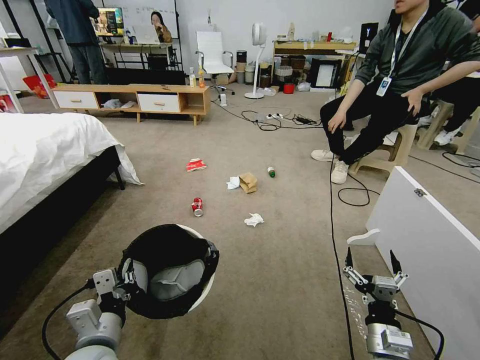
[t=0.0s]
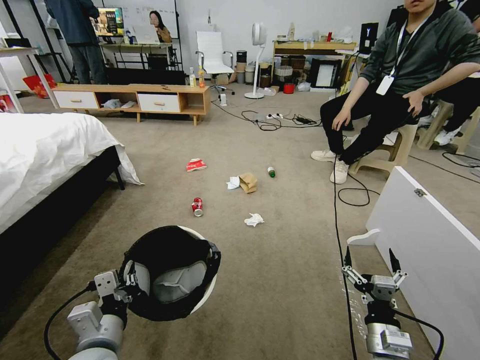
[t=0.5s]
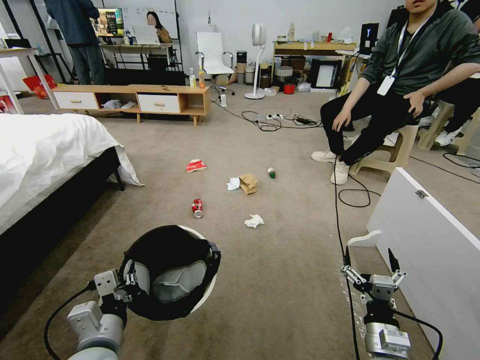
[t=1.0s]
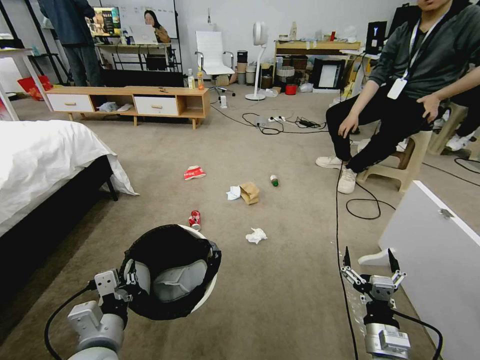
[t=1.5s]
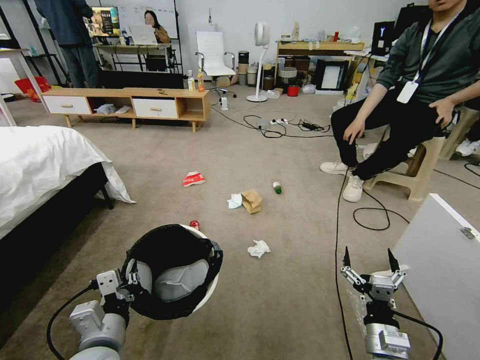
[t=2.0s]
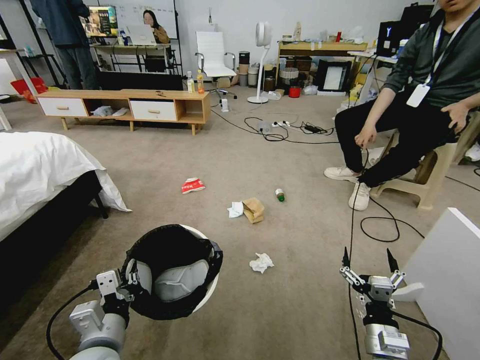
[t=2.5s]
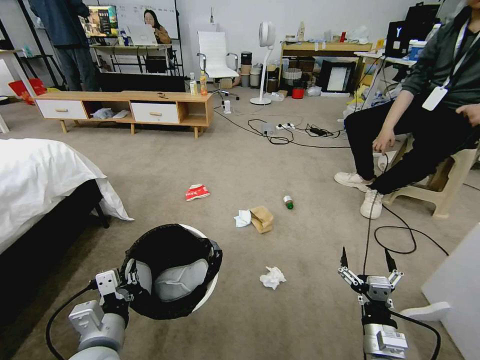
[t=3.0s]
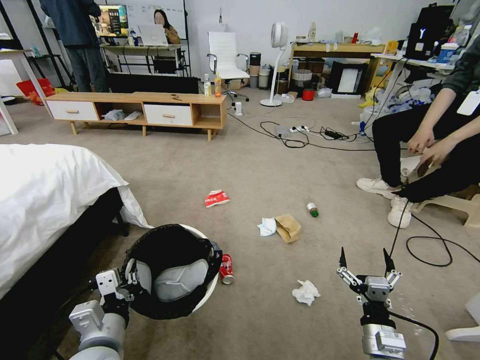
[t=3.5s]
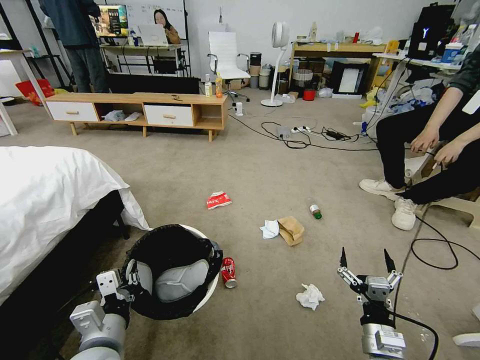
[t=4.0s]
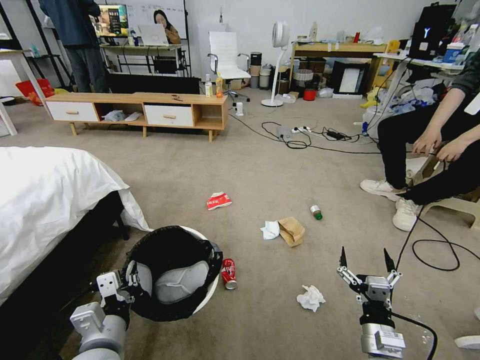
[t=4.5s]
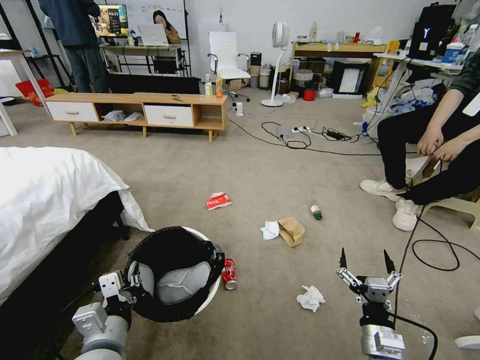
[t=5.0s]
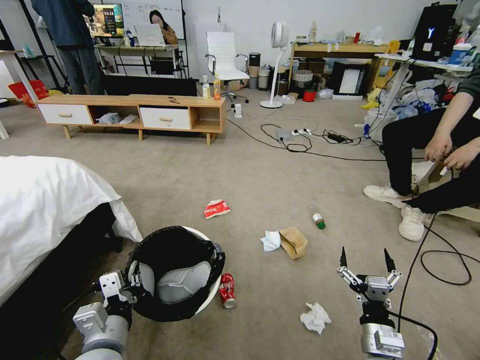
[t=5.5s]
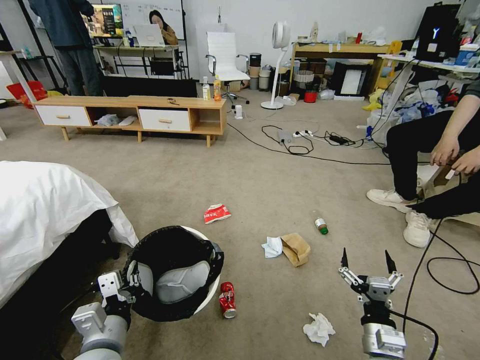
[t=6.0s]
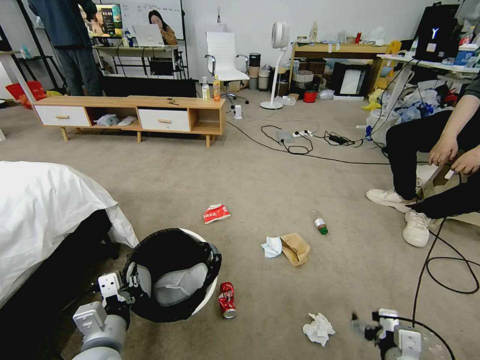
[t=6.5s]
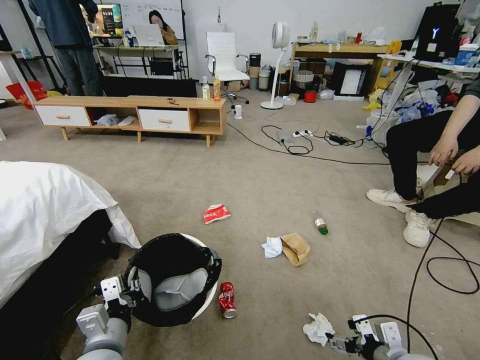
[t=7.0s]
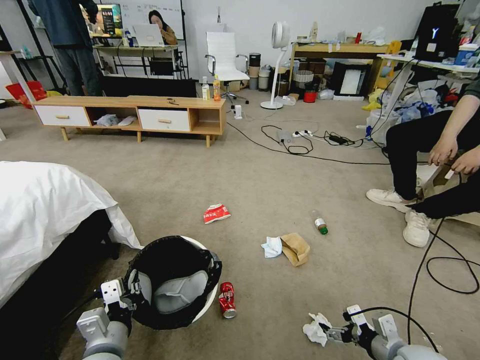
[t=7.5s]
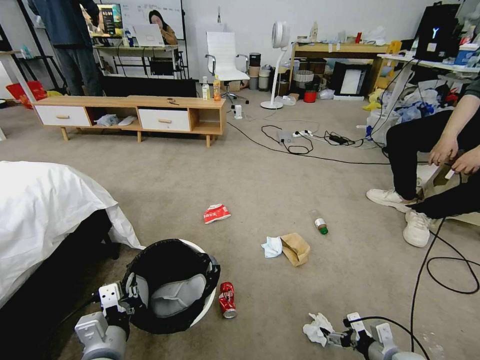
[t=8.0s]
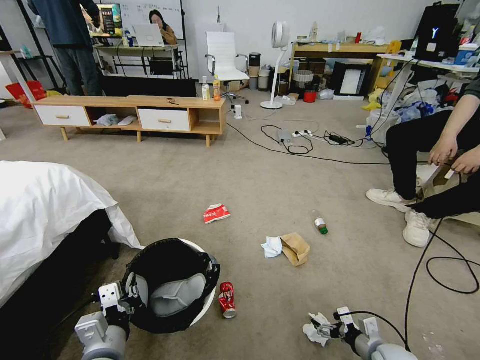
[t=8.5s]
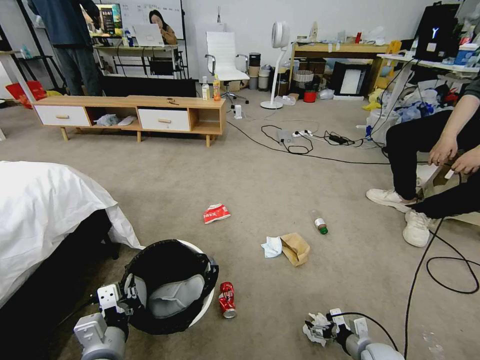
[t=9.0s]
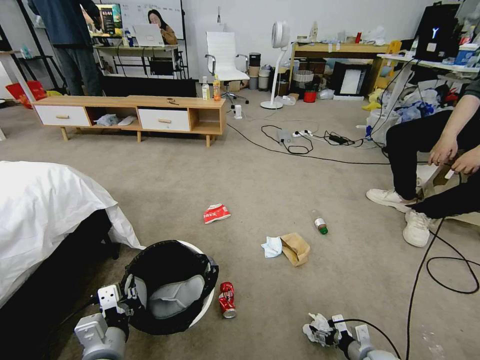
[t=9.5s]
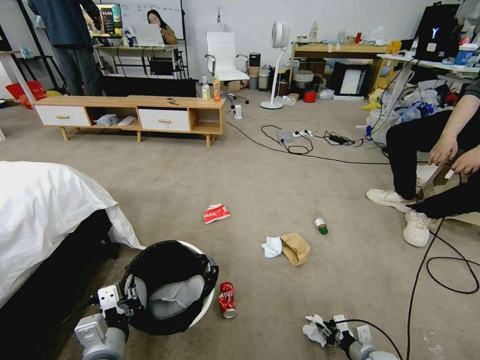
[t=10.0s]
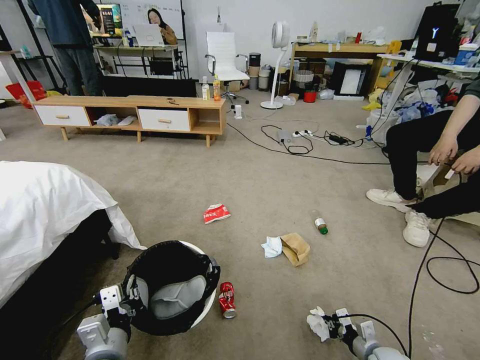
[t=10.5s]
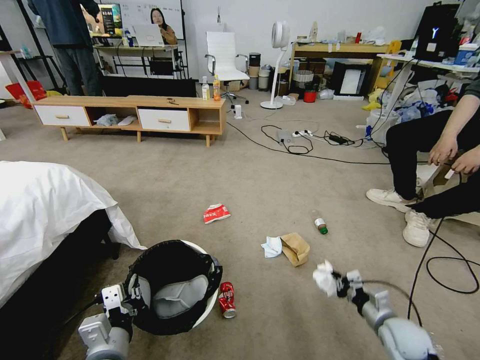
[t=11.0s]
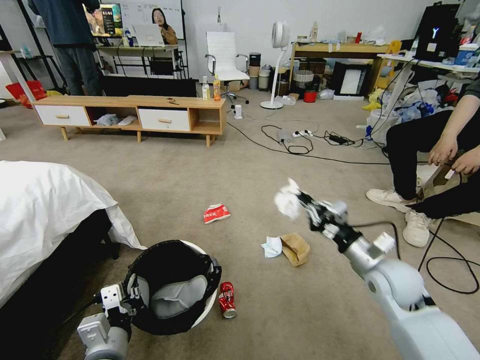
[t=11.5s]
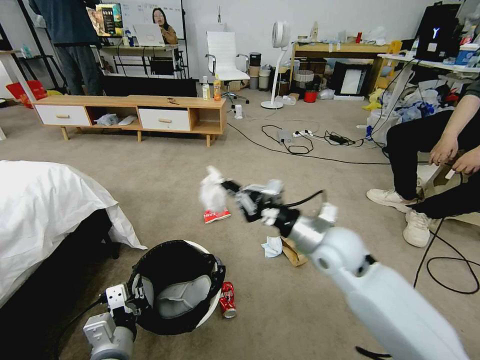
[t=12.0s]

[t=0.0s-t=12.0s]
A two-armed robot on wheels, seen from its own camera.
Task of the whole recording: Pick up the trash bin and place the garbage on the floor into it.
t=6.0s to t=8.0s: The right gripper travels to the right and downward by some 15 cm.
t=8.0s to t=10.0s: The right gripper moves downward, roughly 10 cm, and closes.
t=10.0s to t=12.0s: The right gripper is displaced upward and to the left by approximately 40 cm.

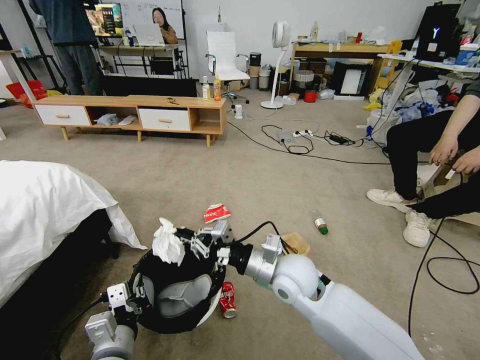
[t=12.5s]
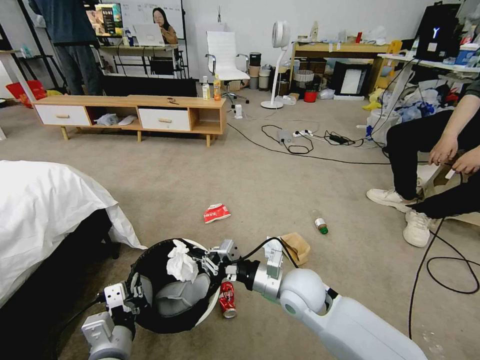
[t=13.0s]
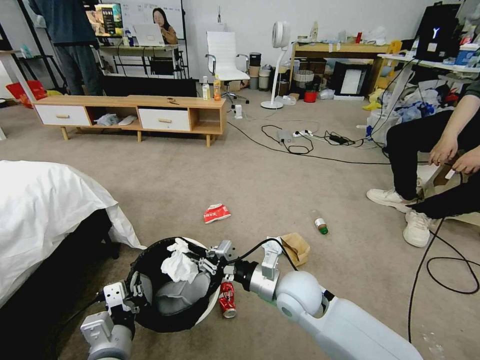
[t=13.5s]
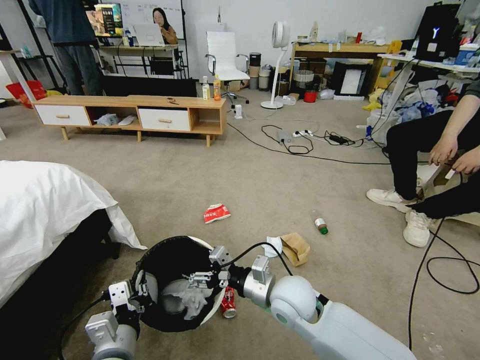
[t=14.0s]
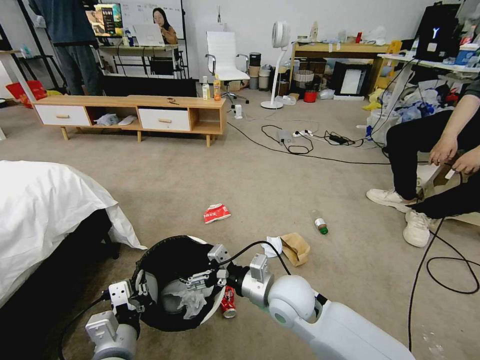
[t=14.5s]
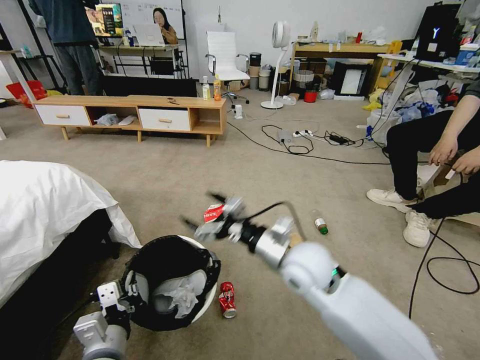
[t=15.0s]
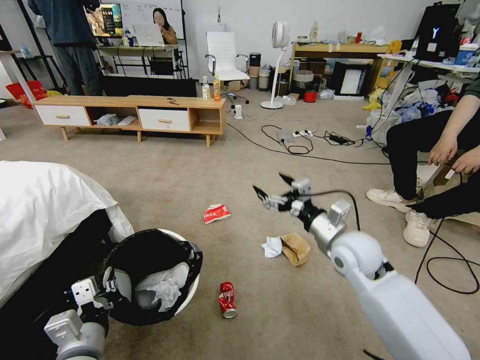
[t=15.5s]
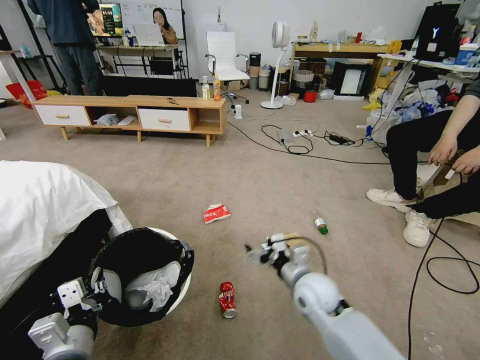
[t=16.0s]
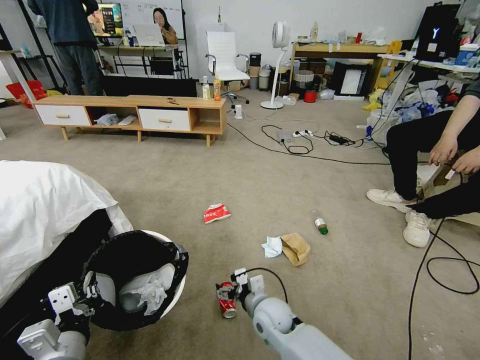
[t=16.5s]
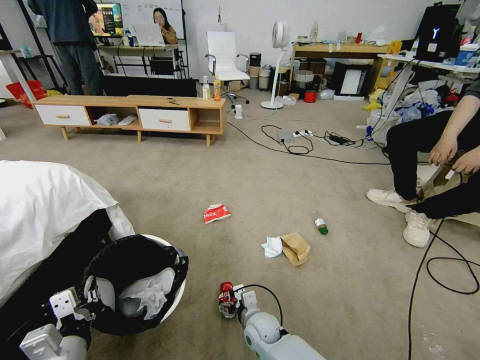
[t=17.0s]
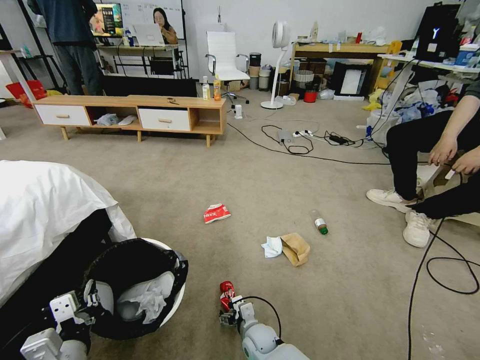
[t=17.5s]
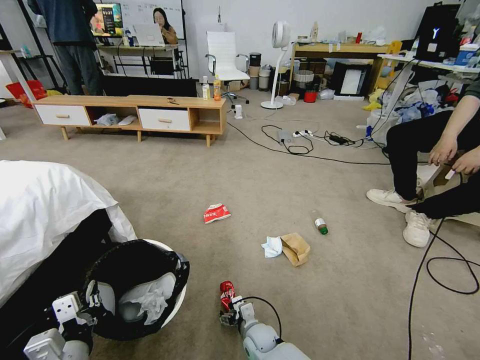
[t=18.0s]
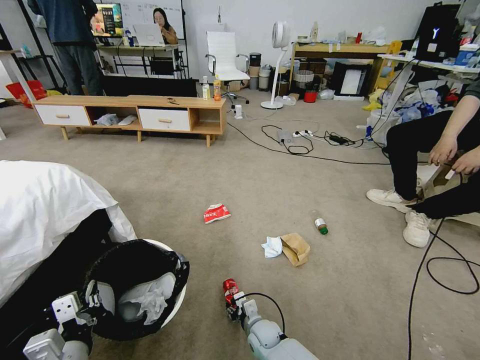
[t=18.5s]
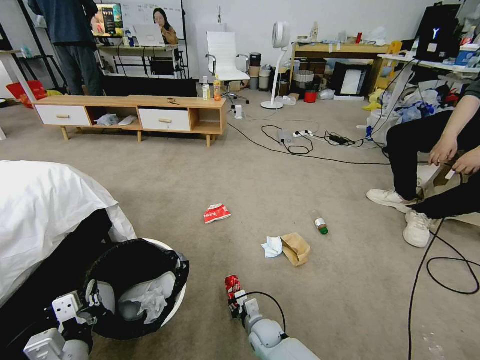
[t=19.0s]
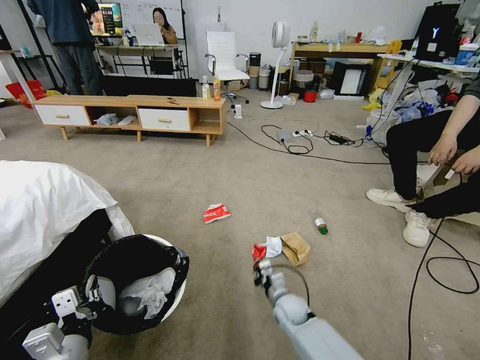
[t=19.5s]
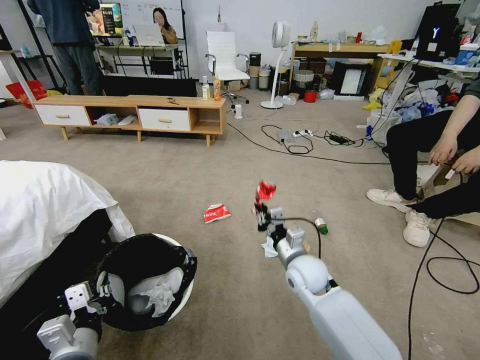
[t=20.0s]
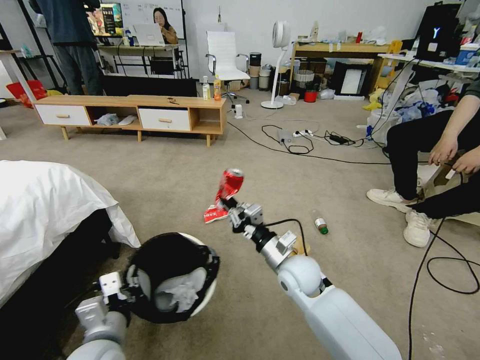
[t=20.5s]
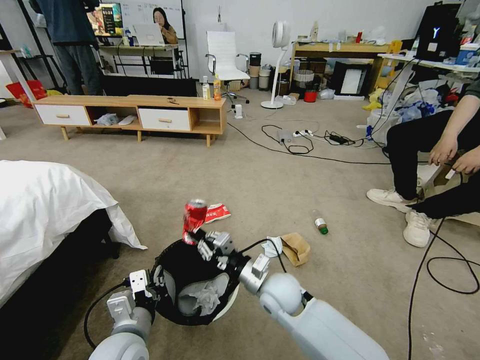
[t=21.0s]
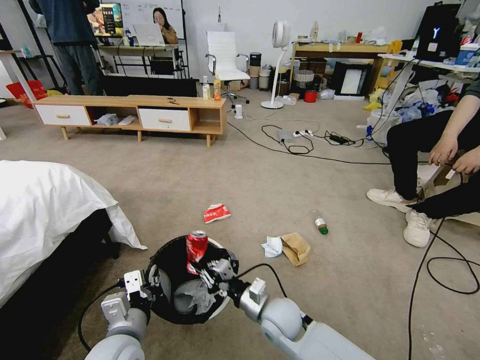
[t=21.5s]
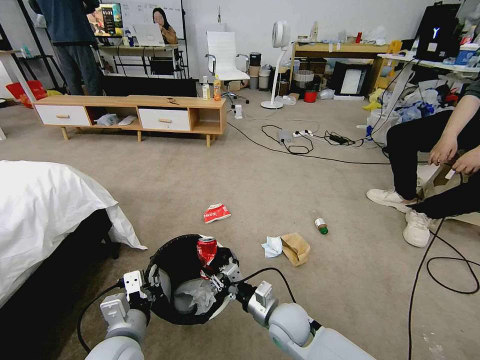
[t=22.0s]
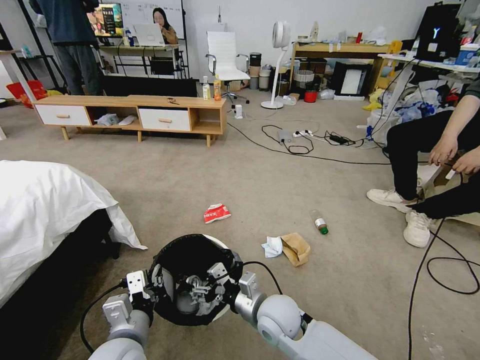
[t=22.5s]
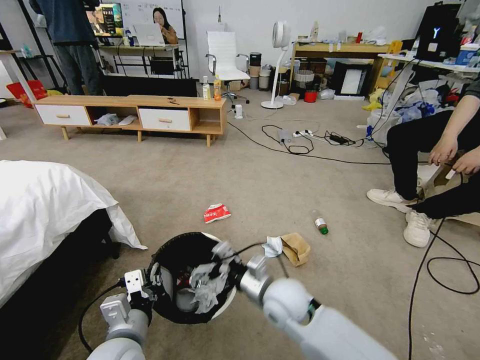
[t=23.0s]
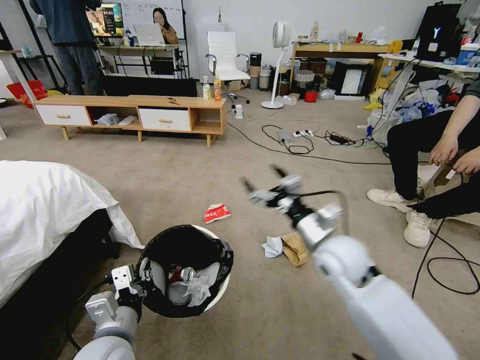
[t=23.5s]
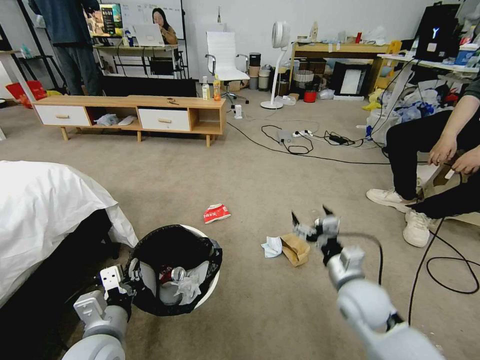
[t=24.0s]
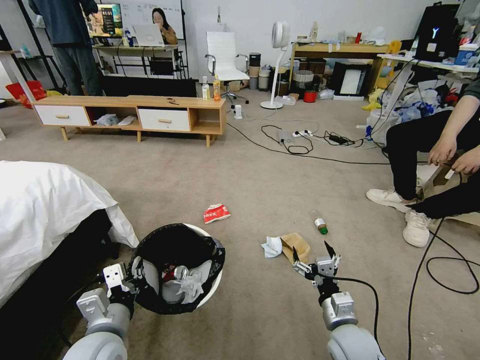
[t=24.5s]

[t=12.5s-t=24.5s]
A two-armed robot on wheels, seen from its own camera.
Task of the whole recording: Pick up the trash bin and place the garbage on the floor into it.
t=12.5s to t=14.5s: The right gripper moves approximately 5 cm, and opens its fingers.
t=14.5s to t=16.5s: The left gripper travels to the left by roughly 5 cm, while the right gripper moves downward, approximately 15 cm.
t=16.5s to t=18.5s: The right gripper shifts about 15 cm downward, and closes up.
t=18.5s to t=20.5s: The right gripper moves upward, about 25 cm, and closes its fingers, while the left gripper shifts by approximately 5 cm.
t=20.5s to t=22.5s: The right gripper moves backward, to the left and downward, roughly 10 cm, and opens its fingers.
t=22.5s to t=24.5s: The right gripper goes roughly 15 cm to the right, and reaches approximately 15 cm upward, then returns.

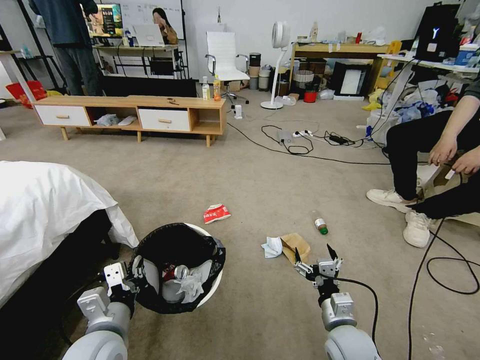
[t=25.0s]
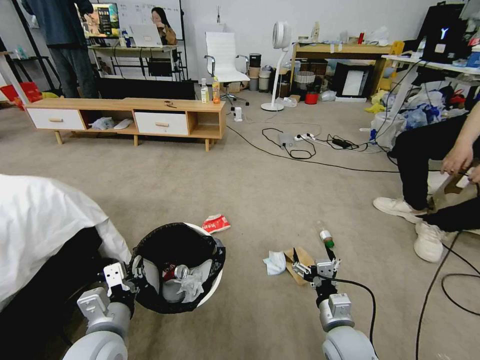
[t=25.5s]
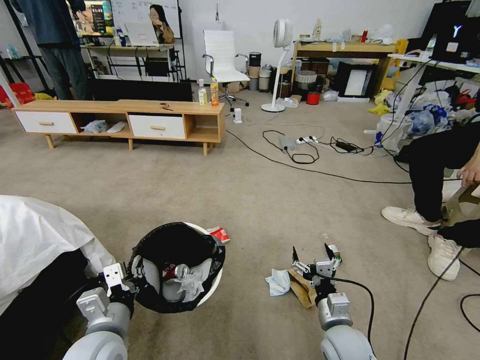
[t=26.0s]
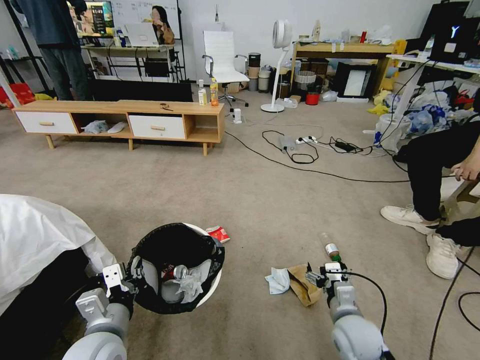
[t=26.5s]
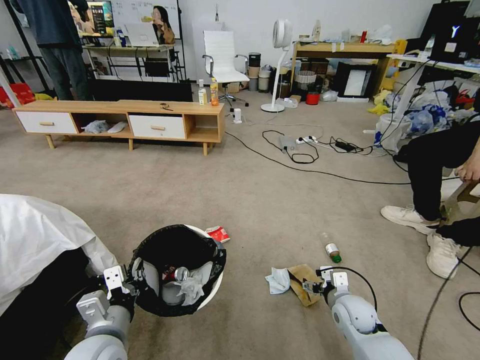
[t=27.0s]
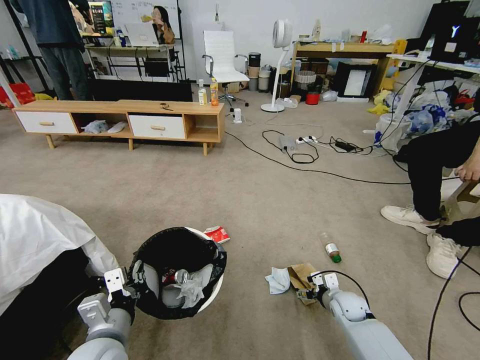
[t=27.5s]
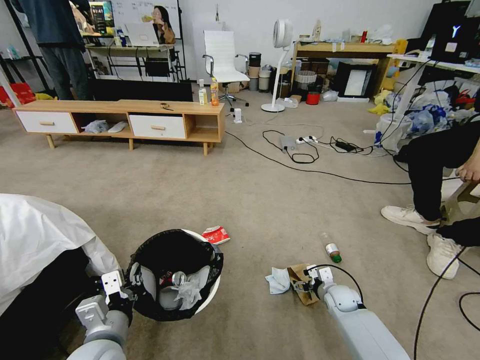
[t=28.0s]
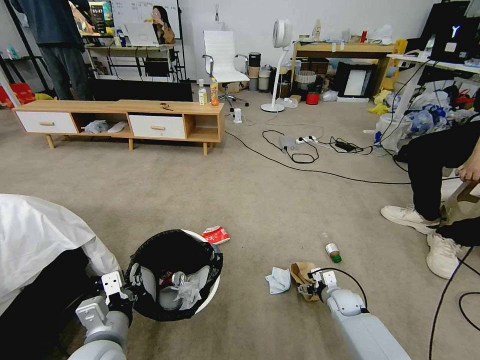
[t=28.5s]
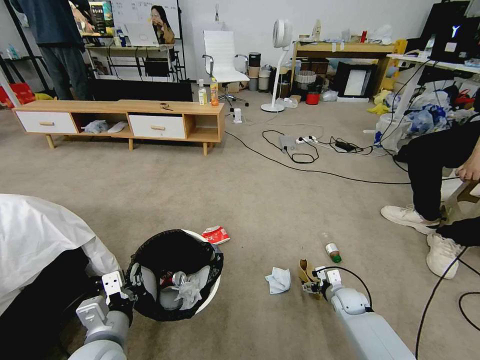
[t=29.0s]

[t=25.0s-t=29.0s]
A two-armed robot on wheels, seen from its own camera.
Task of the whole recording: Pick up the trash bin and place the garbage on the floor into it.
t=25.0s to t=27.0s: The right gripper is displaced forward and to the right by approximately 10 cm.
t=27.0s to t=29.0s: The right gripper shifts about 10 cm downward and forward.
